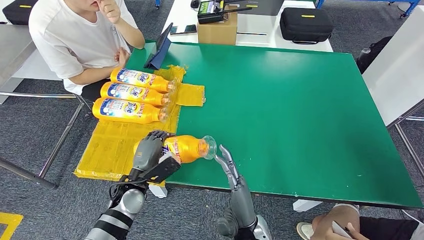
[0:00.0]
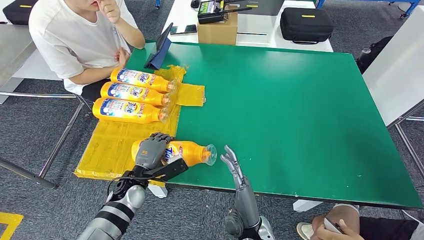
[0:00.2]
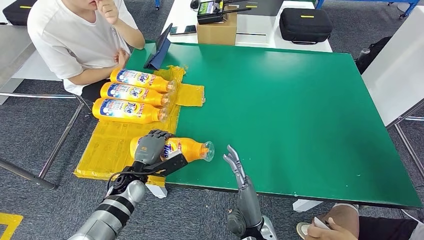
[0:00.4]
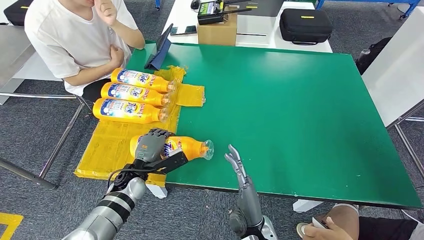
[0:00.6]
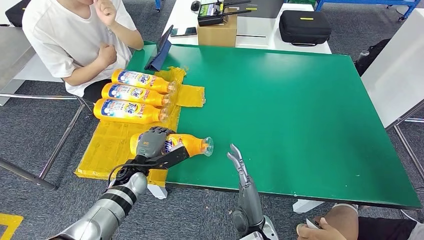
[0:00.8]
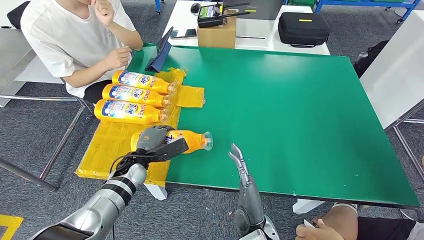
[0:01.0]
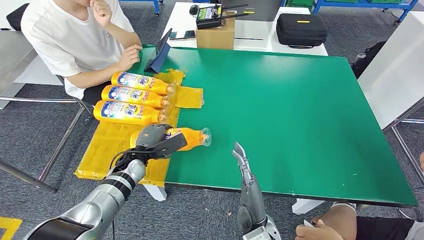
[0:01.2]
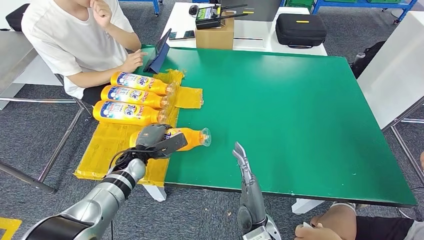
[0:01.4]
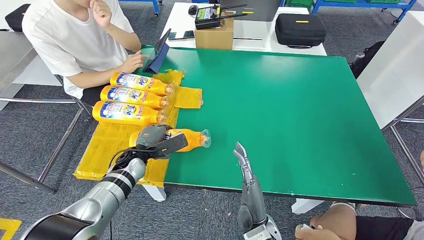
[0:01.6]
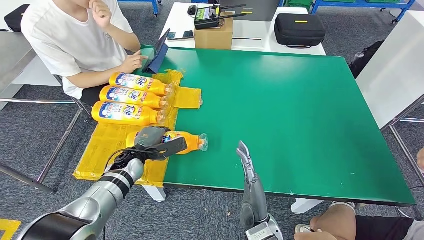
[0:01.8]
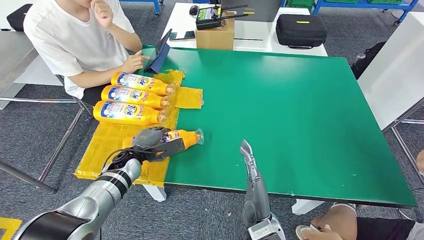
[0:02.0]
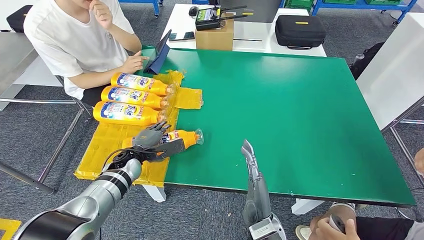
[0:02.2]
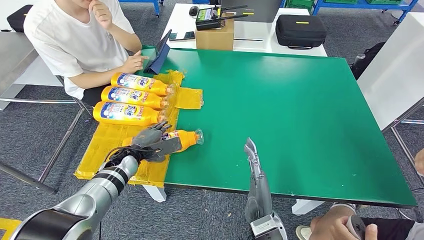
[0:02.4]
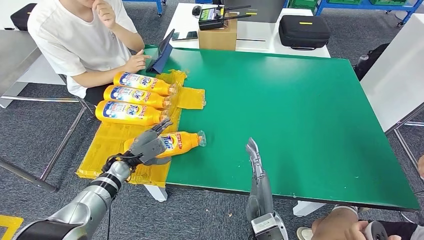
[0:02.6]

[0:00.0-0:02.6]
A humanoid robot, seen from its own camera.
Step, 0:00.0 to 0:02.6: Flip the bottle to face forward.
